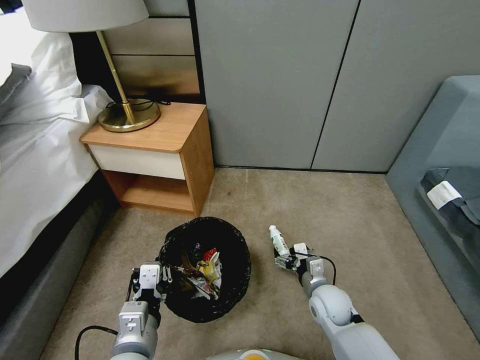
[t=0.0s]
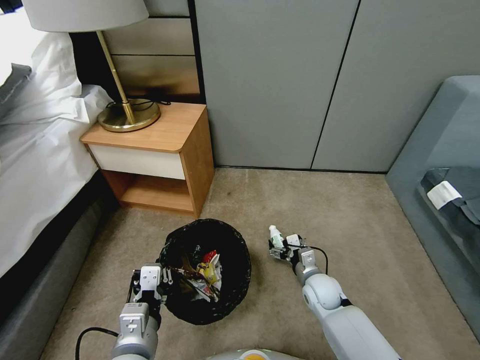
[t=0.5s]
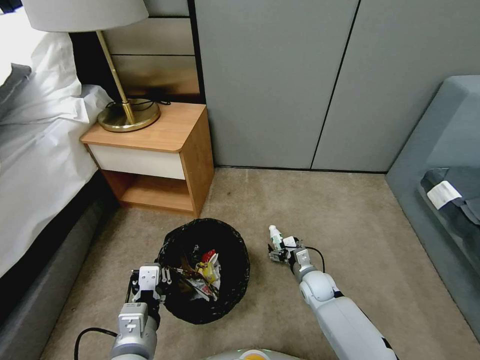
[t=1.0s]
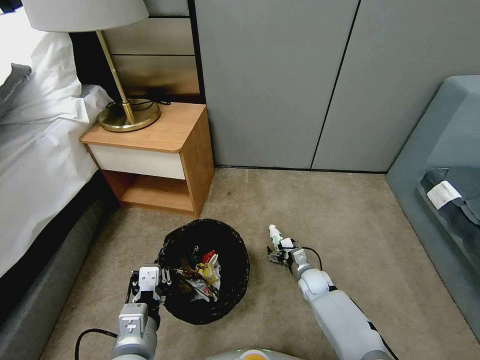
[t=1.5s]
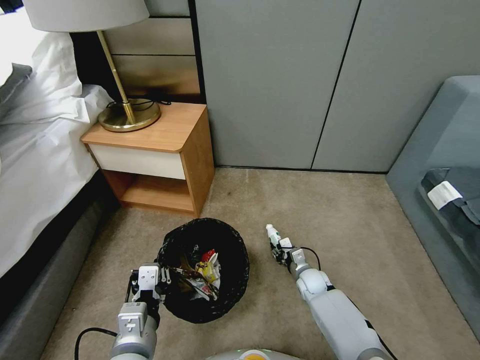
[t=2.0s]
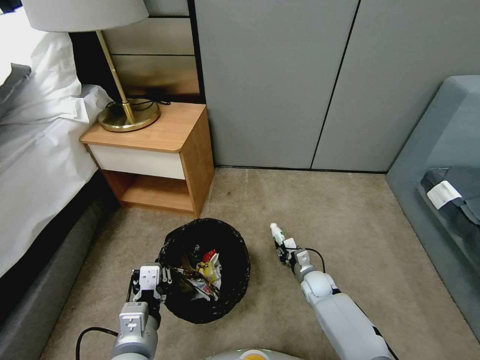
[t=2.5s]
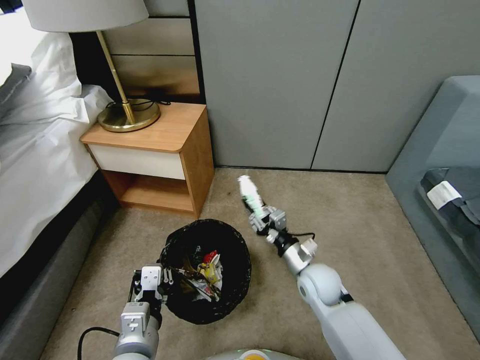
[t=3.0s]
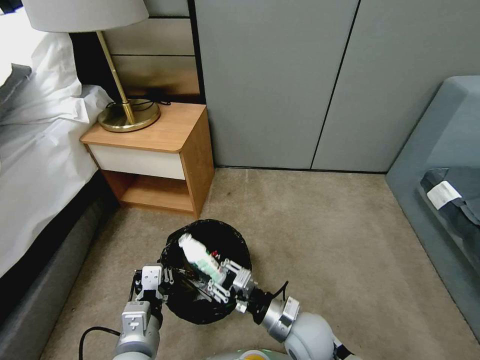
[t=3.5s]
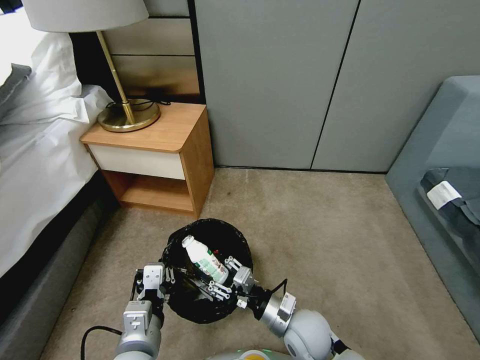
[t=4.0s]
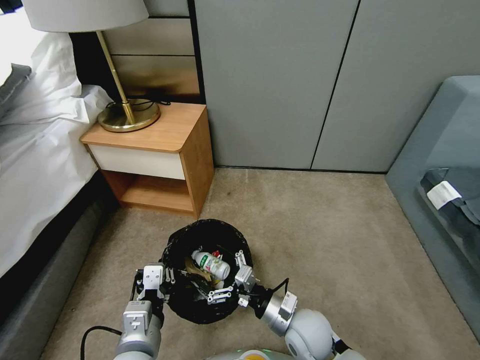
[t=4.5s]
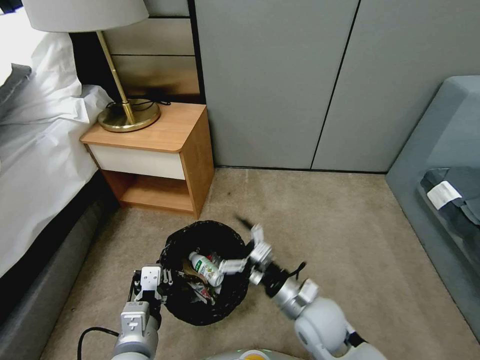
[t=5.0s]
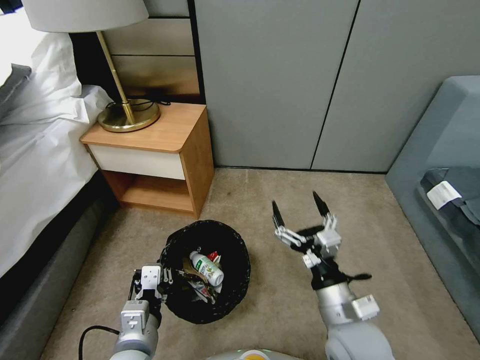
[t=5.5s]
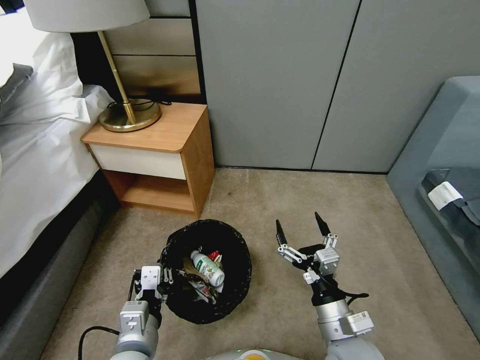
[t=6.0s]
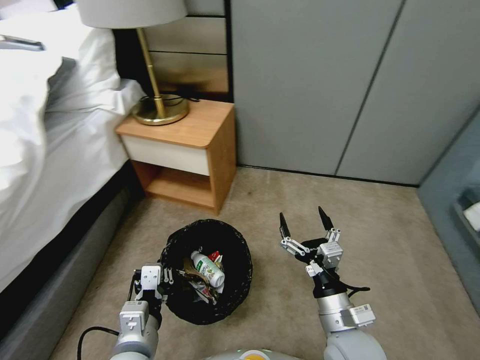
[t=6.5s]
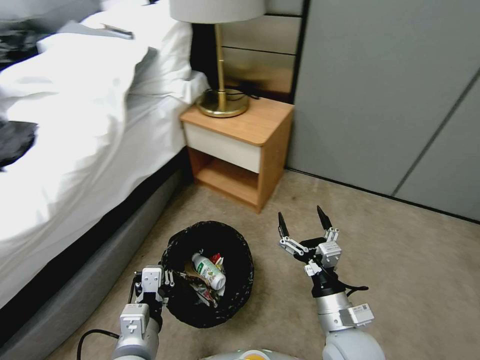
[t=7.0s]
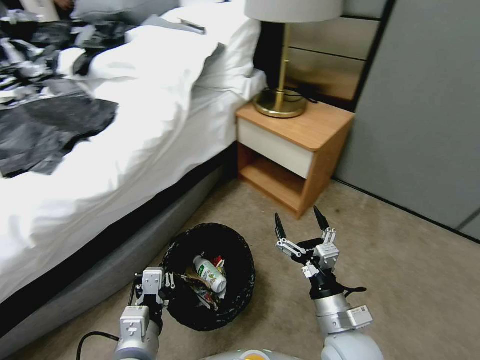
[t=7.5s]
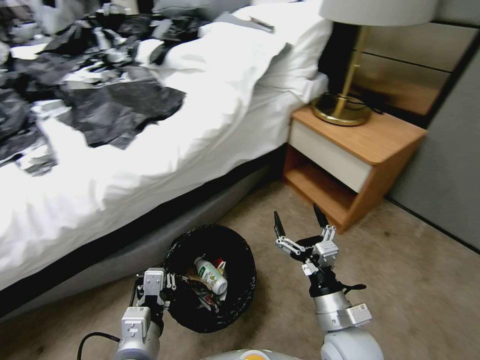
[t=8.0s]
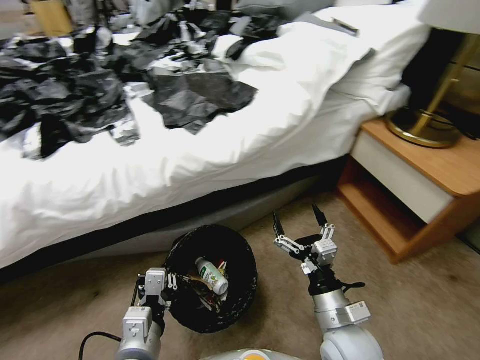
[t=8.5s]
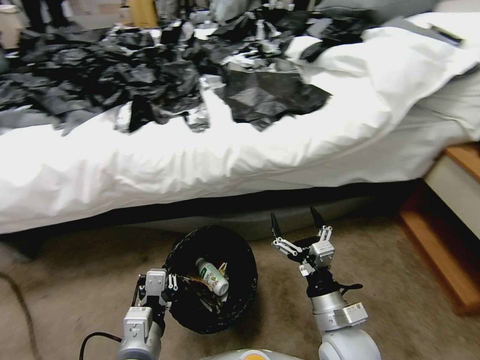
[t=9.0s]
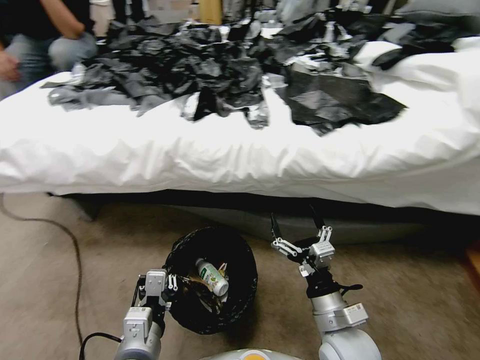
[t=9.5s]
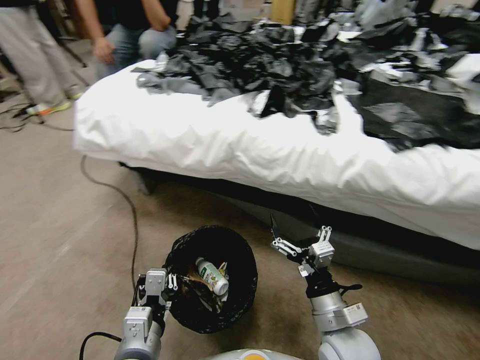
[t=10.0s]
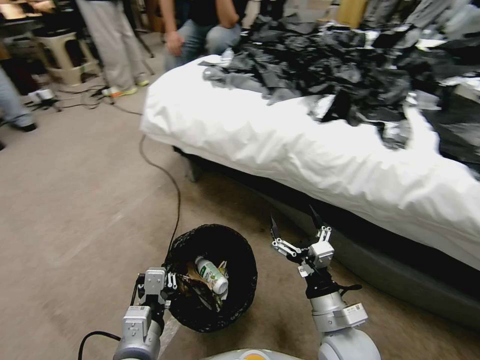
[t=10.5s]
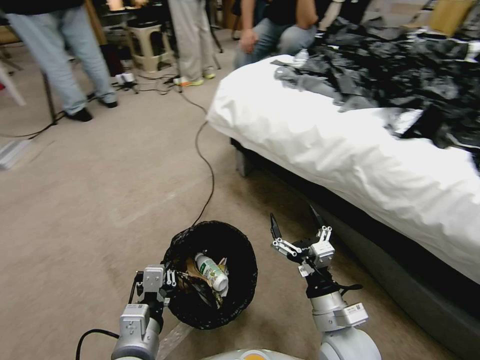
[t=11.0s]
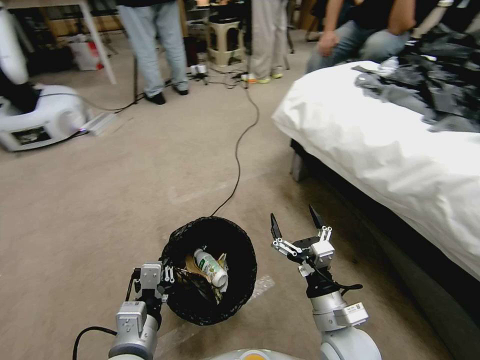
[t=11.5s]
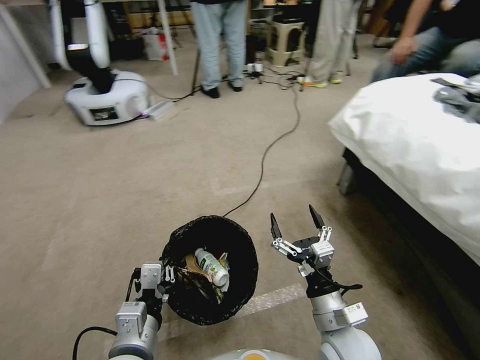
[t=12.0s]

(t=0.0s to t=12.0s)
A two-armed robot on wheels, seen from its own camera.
Task of the whole recording: Pick up the trash bin, then pick up the garbage from the floor and place it into the trash bin.
t=0.0s - t=2.0s: The right gripper travels downward and forward by about 15 cm, and closes its fingers.
t=2.0s - t=4.0s: The right gripper moves backward, upward and to the left, approximately 25 cm.
t=4.0s - t=6.0s: The right gripper shifts approximately 10 cm upward, to the right and backward, and opens its fingers.

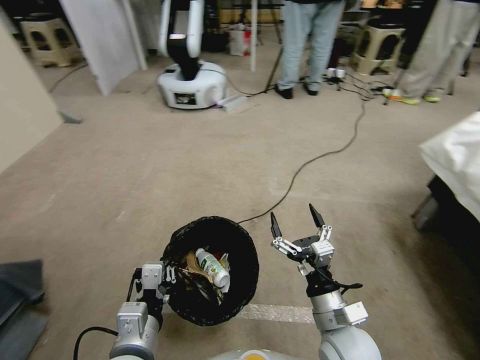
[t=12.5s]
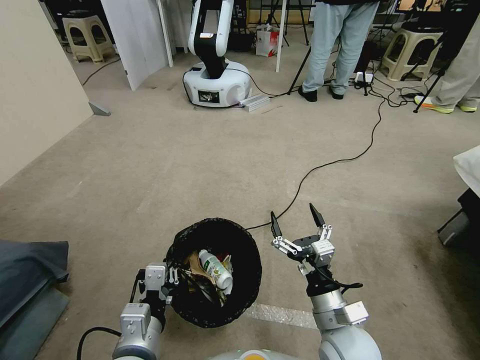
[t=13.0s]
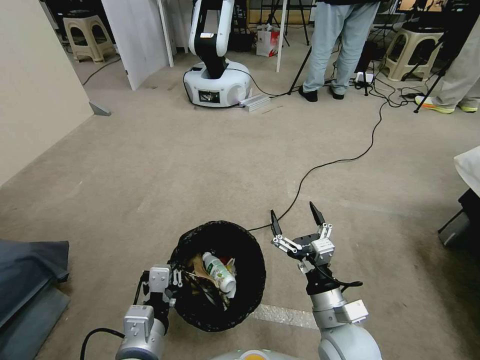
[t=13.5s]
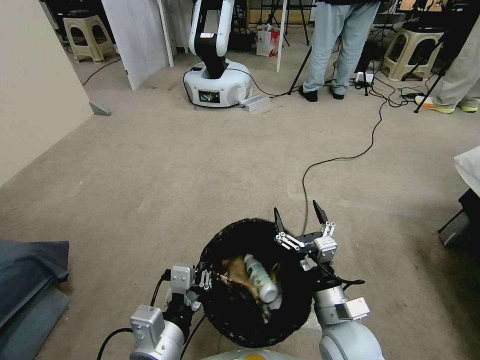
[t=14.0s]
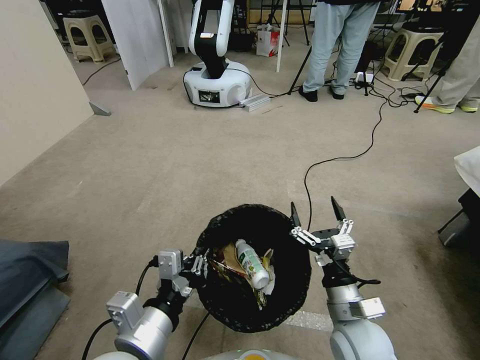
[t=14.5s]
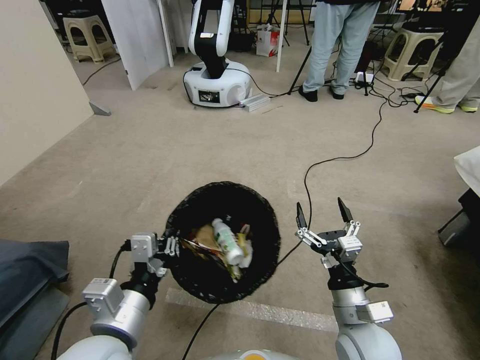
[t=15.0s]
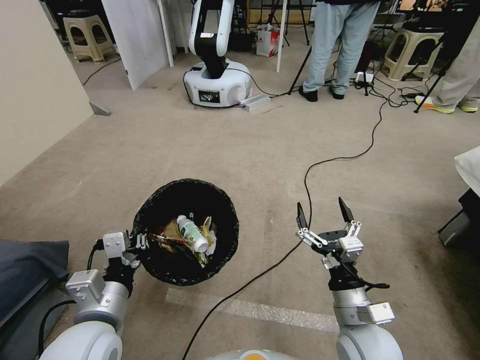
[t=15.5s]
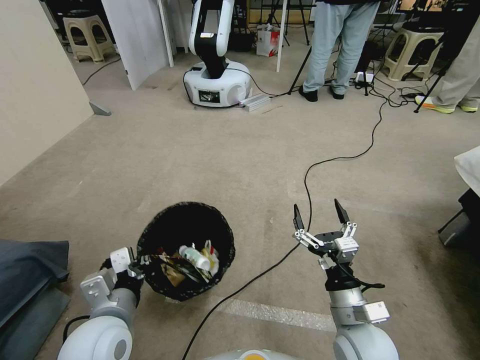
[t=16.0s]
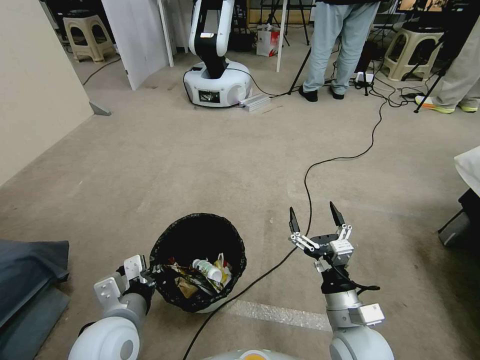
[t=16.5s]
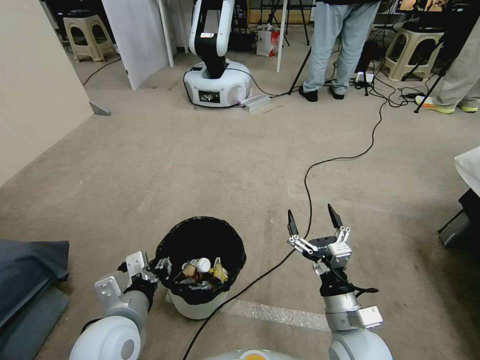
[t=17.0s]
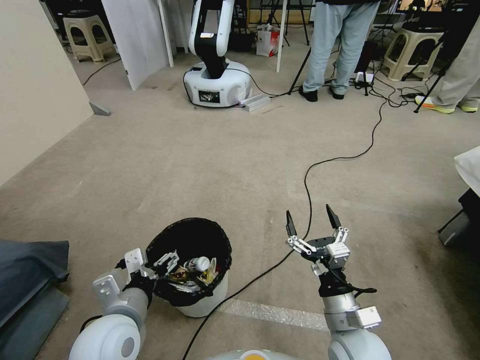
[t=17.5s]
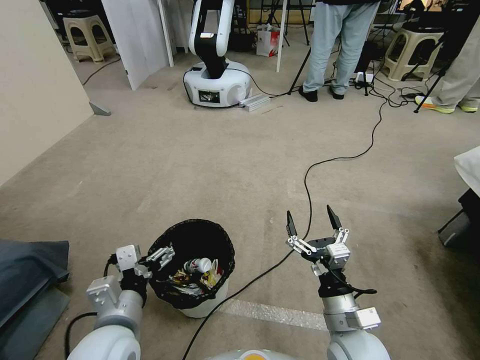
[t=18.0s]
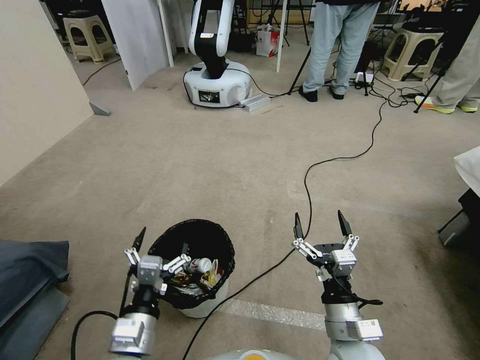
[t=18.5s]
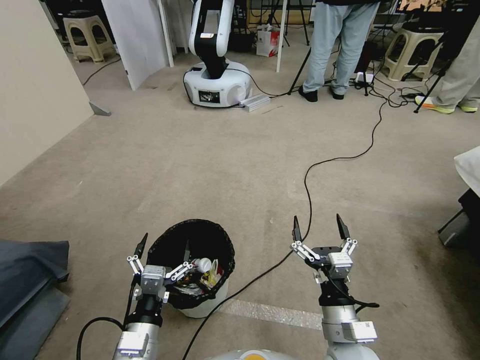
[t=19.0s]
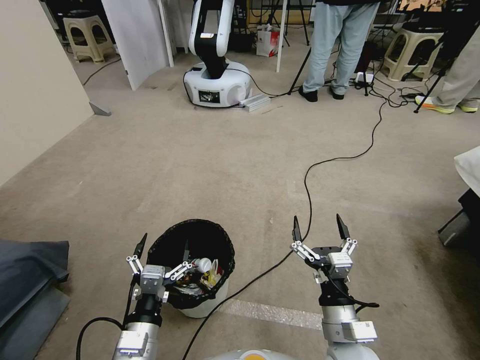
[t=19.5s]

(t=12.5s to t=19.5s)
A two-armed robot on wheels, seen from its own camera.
Task of the whole recording: Pick up the trash bin, then pick up the garbage from the floor and place it into the trash bin.
t=12.5s - t=14.5s: The left gripper goes some 5 cm upward.
t=14.5s - t=16.0s: The left gripper travels to the left and forward by some 10 cm.
t=16.0s - t=17.5s: The left gripper opens its fingers.
t=17.5s - t=19.5s: The left gripper is displaced downward and backward by approximately 10 cm.
